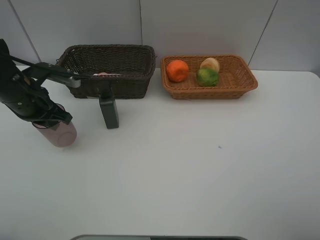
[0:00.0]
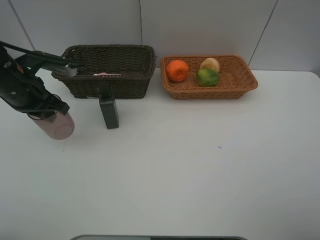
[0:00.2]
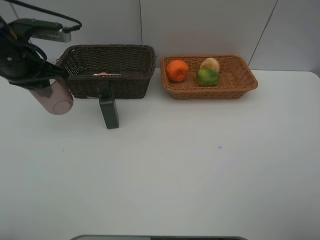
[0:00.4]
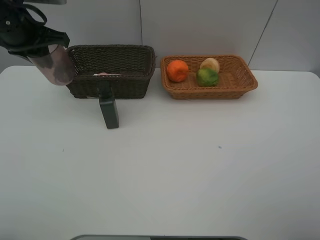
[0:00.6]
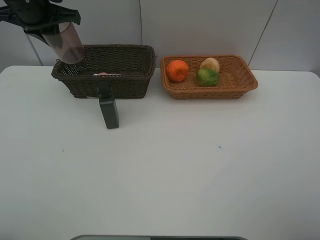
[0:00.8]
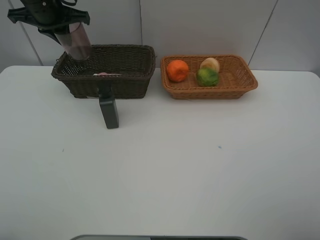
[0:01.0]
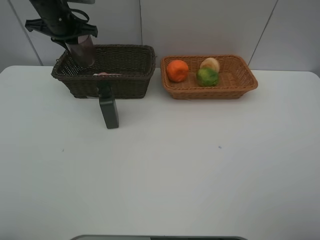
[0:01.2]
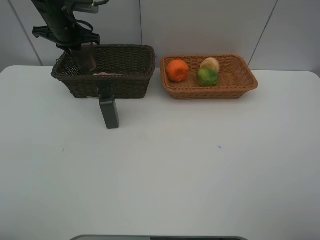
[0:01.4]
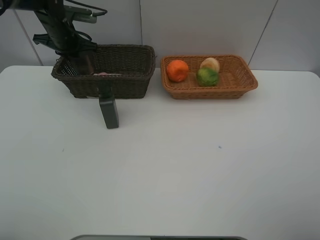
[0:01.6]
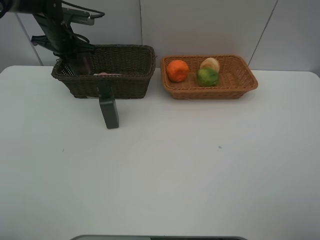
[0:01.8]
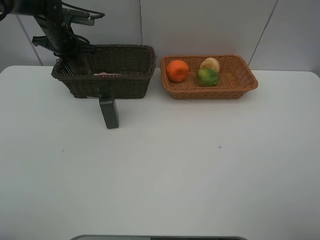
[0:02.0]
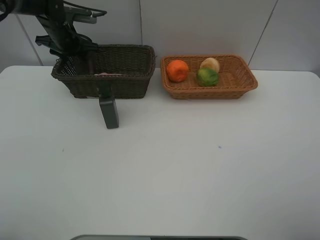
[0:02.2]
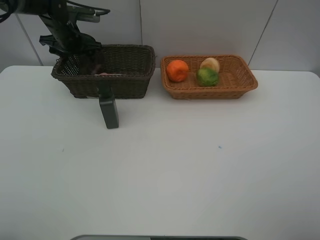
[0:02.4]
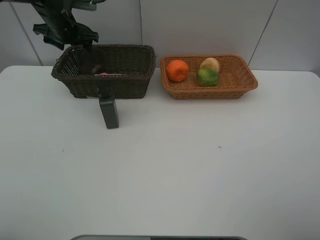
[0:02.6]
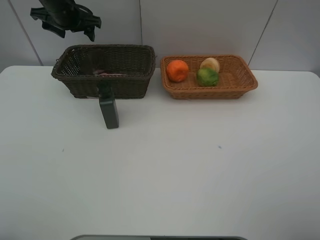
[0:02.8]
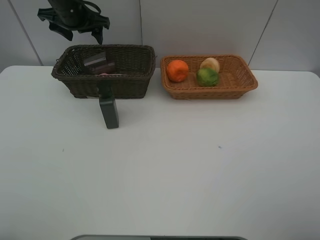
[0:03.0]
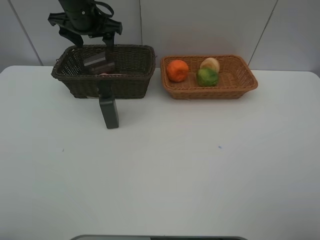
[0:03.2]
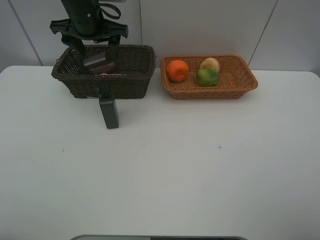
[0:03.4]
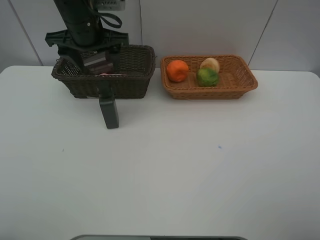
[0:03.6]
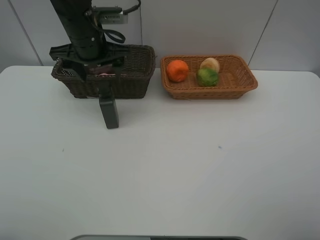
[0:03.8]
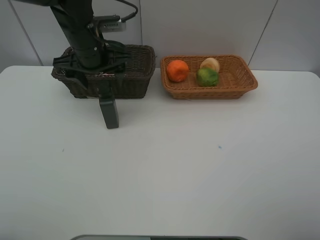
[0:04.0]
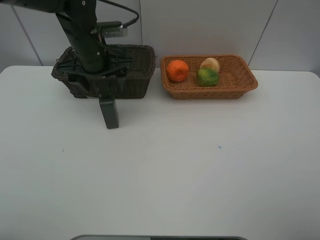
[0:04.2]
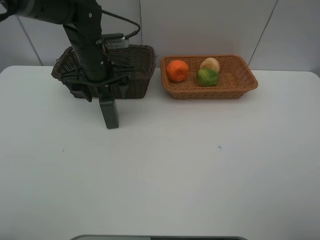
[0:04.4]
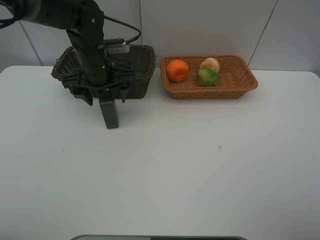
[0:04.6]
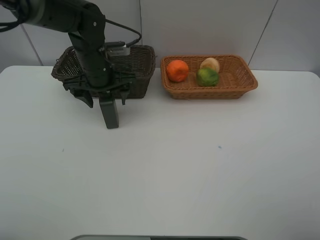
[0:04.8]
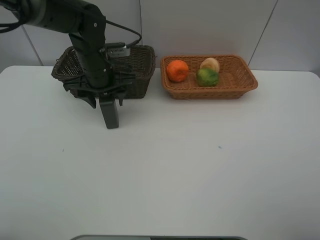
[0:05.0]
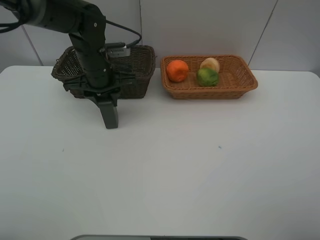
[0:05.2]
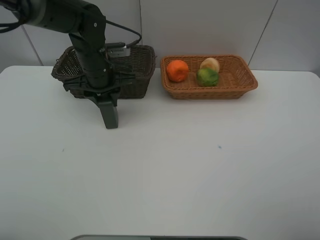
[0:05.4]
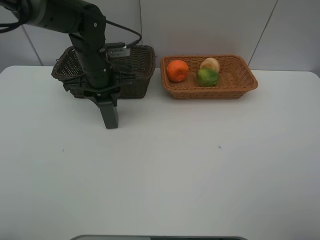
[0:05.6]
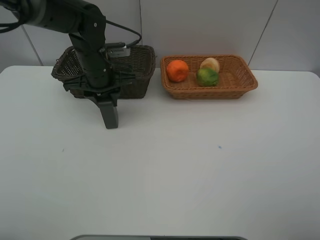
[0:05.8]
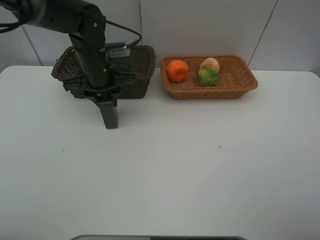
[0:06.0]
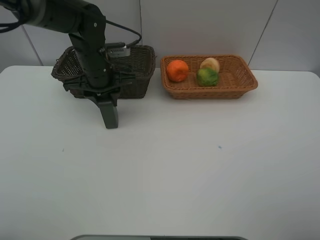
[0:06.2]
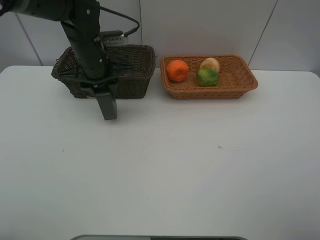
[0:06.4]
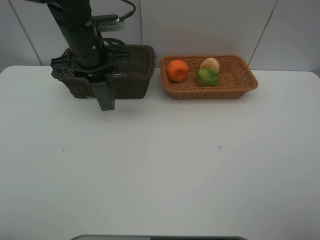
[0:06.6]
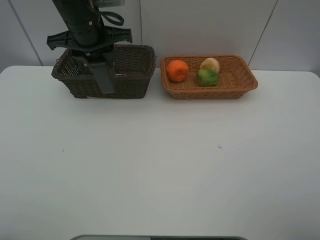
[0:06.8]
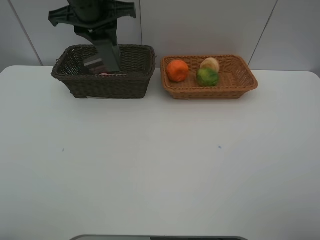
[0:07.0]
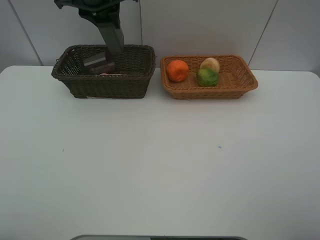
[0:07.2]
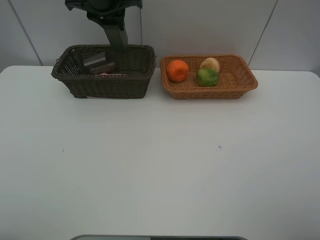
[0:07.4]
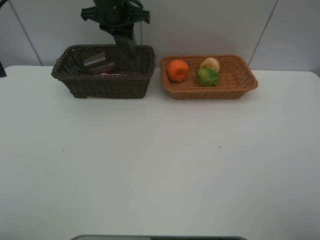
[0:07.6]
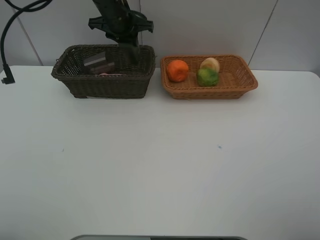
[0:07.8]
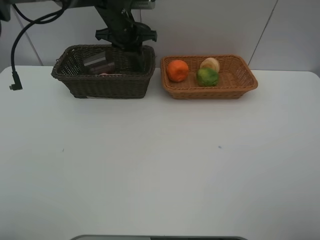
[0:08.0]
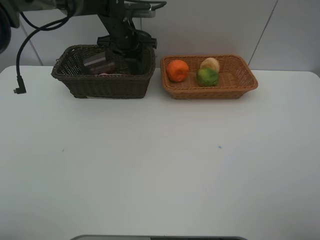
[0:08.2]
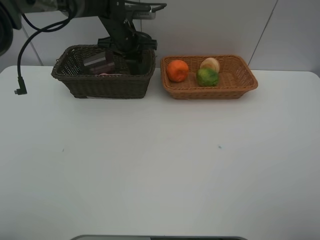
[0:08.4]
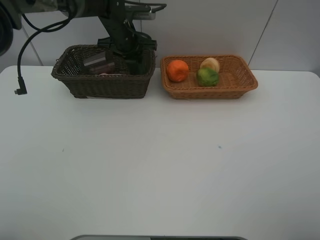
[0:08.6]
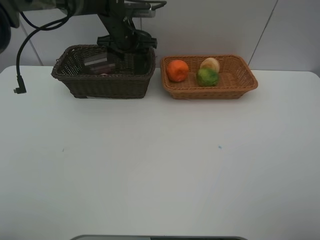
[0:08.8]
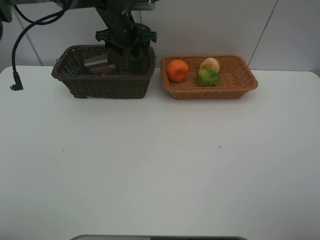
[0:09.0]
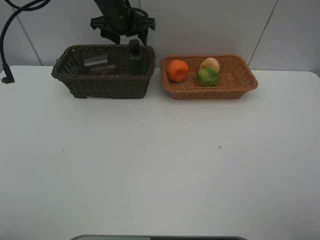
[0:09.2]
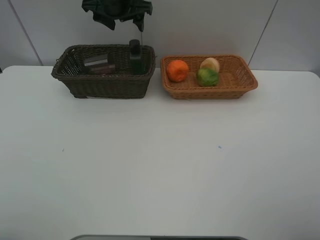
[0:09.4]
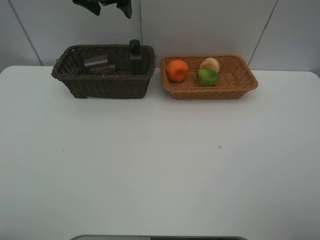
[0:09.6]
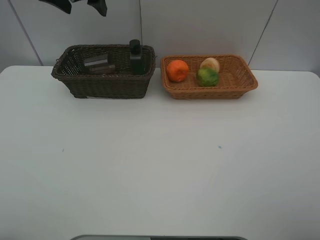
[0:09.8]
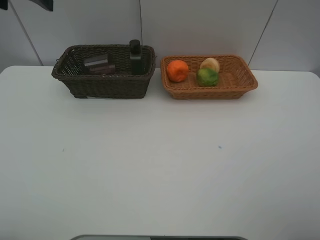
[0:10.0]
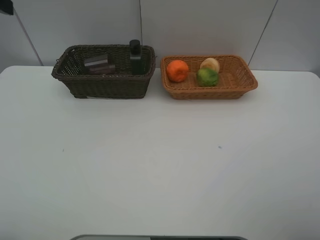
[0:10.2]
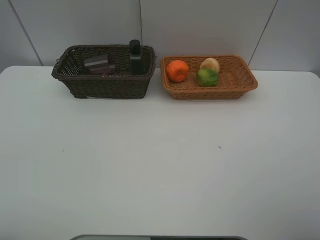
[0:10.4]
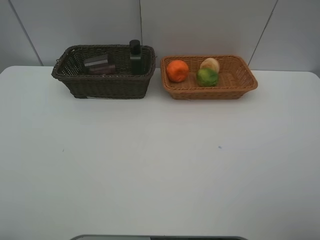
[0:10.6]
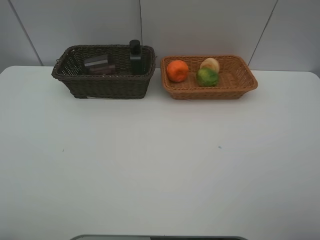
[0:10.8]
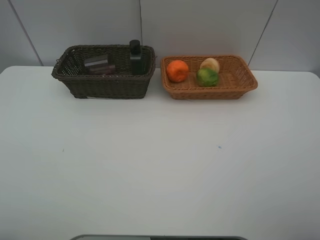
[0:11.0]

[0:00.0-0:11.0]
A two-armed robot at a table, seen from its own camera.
Task of the whole recording: place multiple objects separately in different baskets.
0:00.0 to 0:01.6: The left gripper travels forward by about 20 cm.
0:01.6 to 0:03.2: The left gripper is displaced to the right, upward and backward by roughly 15 cm, and opens its fingers.
0:03.2 to 0:04.8: The left gripper travels downward and backward by about 10 cm.
0:04.8 to 0:06.2: The left gripper closes up.
0:06.2 to 0:07.8: The left gripper heads forward and upward, covering approximately 15 cm.
0:07.8 to 0:09.4: The left gripper travels upward by about 5 cm, and opens.
0:09.4 to 0:11.0: The left gripper moves backward and to the left, roughly 50 cm.

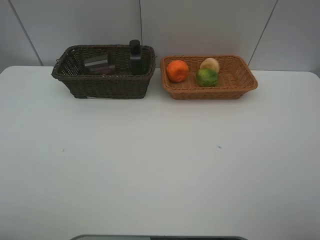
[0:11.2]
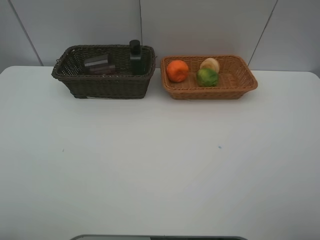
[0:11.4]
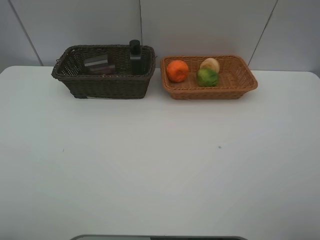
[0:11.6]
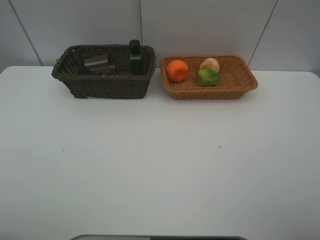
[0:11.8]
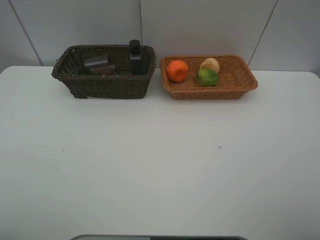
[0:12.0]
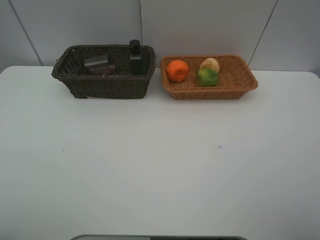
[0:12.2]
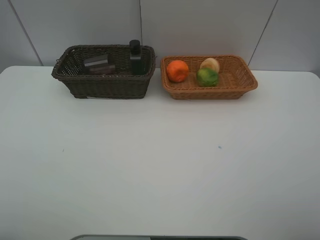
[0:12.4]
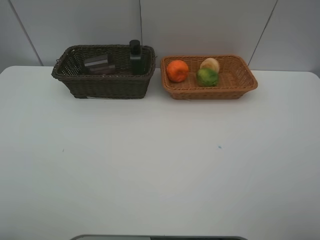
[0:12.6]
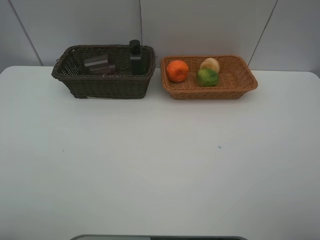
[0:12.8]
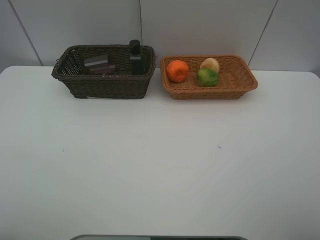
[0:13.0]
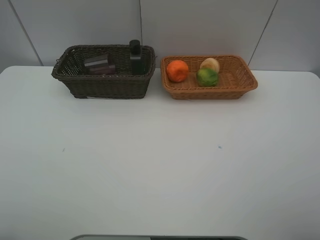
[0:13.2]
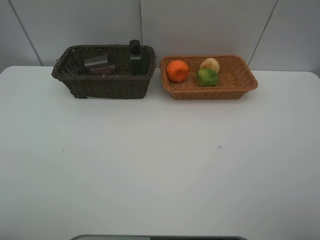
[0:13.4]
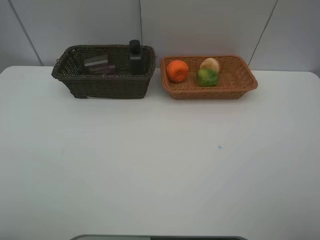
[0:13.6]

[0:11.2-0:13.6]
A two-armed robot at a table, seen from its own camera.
Task of the whole recording: place multiple objects separately in different baskets.
0:11.2 to 0:13.6: The two grippers keep their place.
